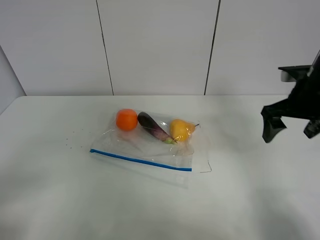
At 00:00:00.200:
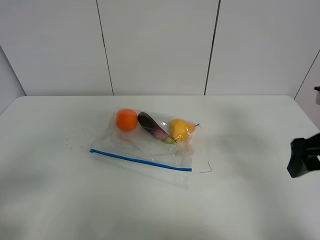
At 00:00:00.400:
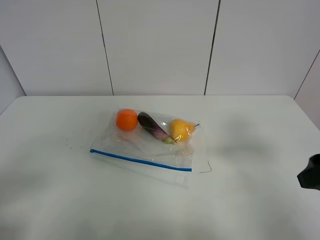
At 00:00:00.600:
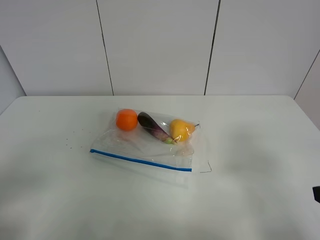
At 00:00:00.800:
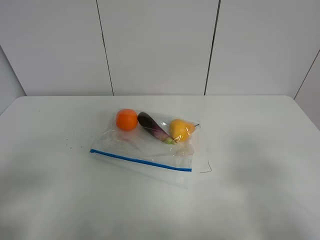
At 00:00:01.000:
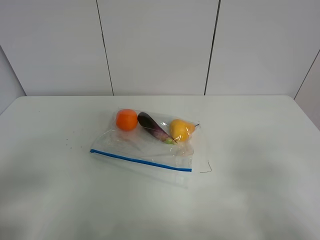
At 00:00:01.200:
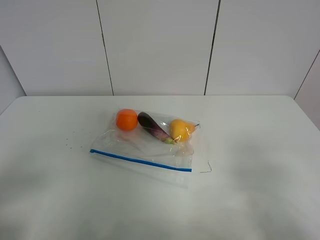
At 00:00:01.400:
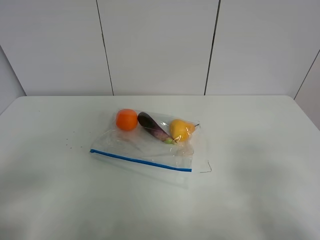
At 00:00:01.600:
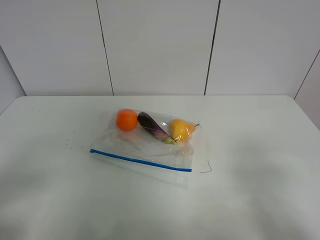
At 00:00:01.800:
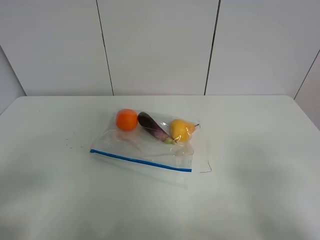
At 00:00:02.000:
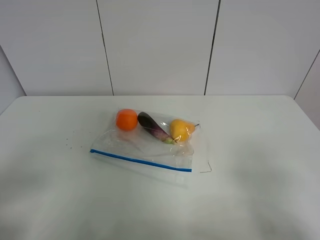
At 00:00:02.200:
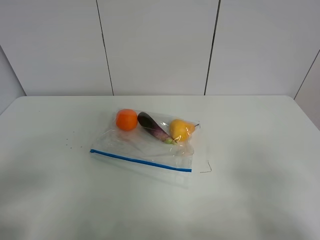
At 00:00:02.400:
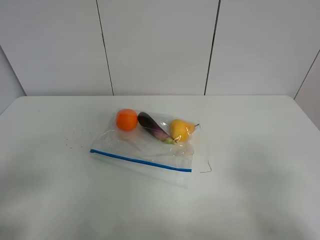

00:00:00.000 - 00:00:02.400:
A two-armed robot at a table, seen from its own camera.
00:00:00.000 - 00:00:01.200: The right gripper travels backward by some 25 cm.

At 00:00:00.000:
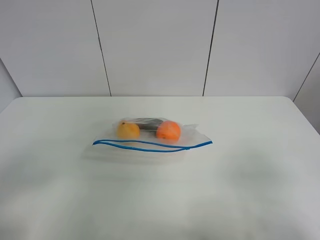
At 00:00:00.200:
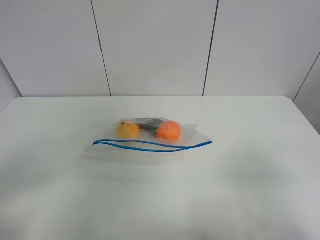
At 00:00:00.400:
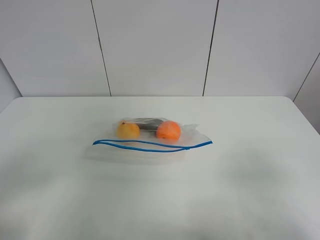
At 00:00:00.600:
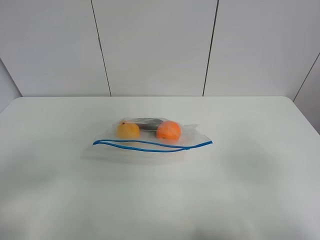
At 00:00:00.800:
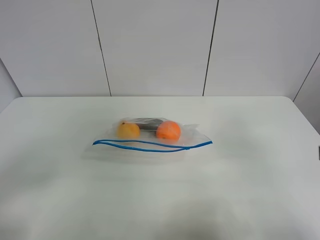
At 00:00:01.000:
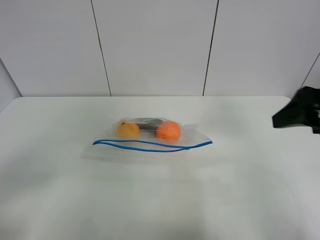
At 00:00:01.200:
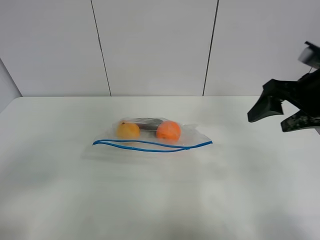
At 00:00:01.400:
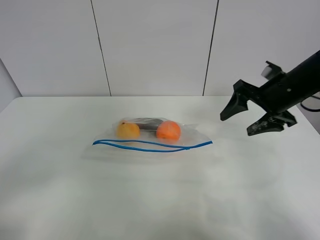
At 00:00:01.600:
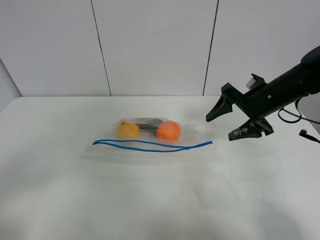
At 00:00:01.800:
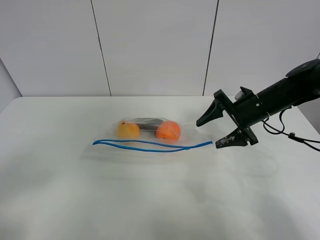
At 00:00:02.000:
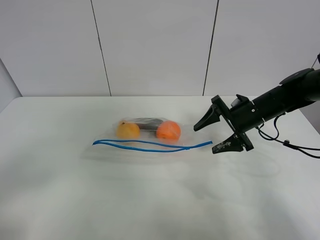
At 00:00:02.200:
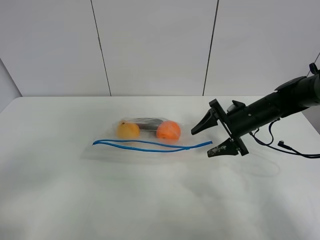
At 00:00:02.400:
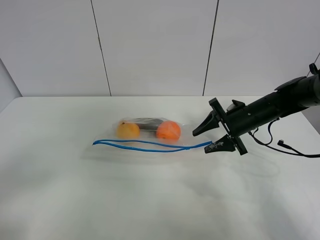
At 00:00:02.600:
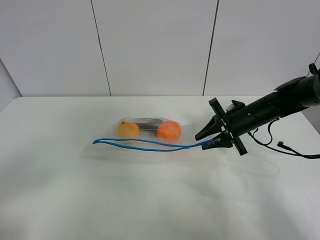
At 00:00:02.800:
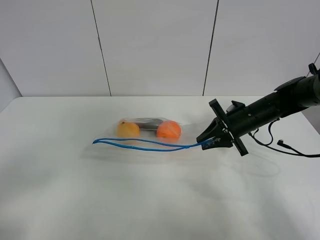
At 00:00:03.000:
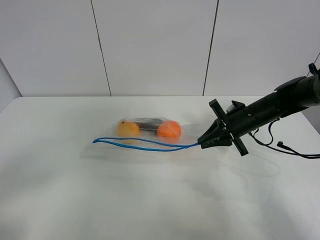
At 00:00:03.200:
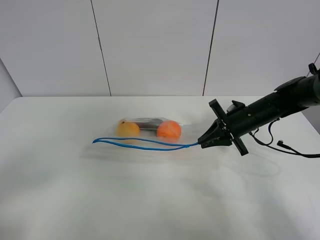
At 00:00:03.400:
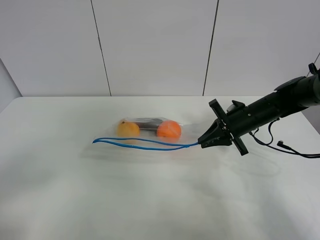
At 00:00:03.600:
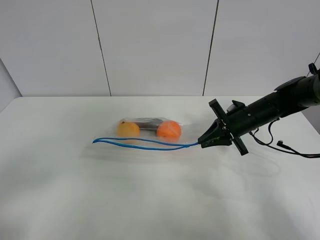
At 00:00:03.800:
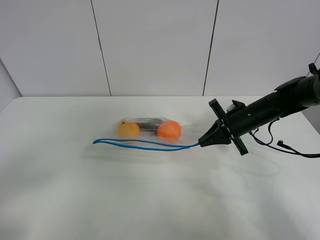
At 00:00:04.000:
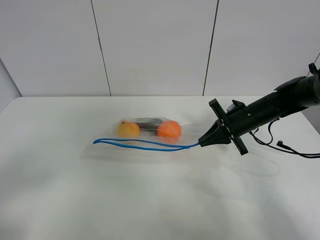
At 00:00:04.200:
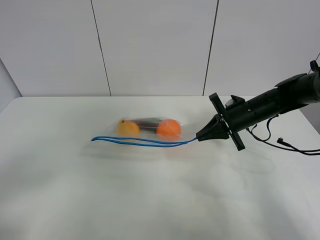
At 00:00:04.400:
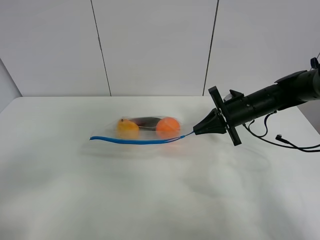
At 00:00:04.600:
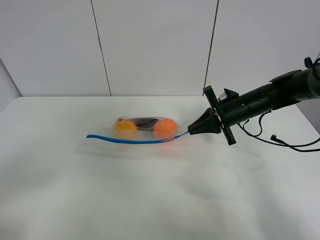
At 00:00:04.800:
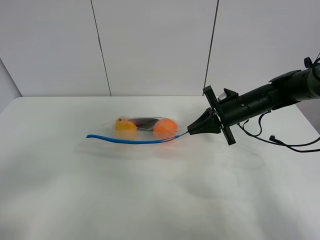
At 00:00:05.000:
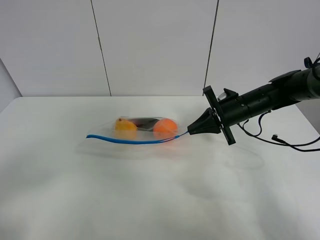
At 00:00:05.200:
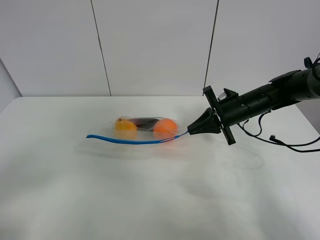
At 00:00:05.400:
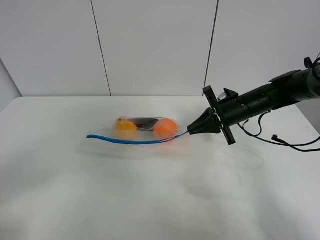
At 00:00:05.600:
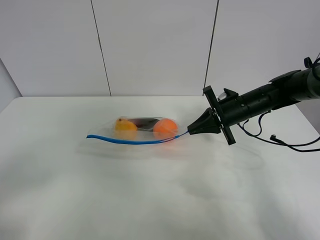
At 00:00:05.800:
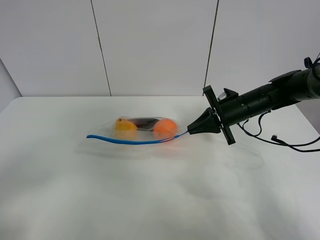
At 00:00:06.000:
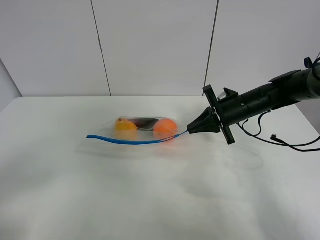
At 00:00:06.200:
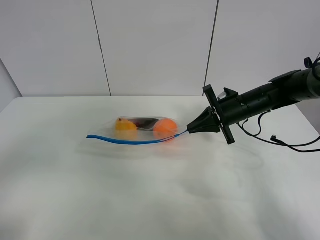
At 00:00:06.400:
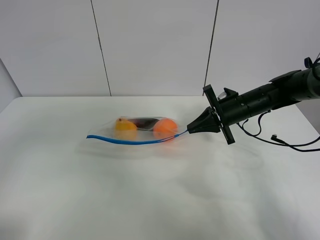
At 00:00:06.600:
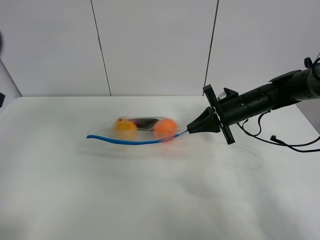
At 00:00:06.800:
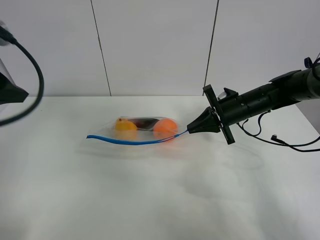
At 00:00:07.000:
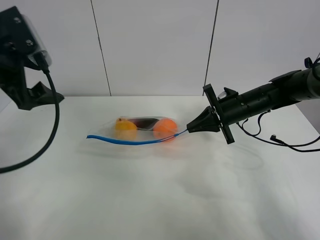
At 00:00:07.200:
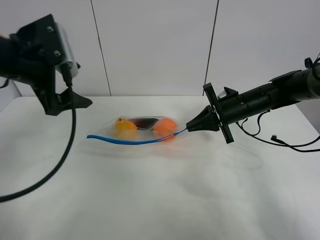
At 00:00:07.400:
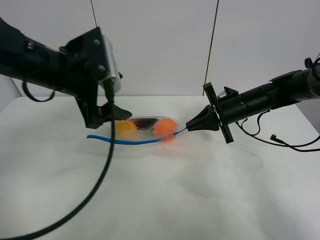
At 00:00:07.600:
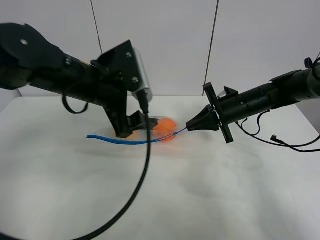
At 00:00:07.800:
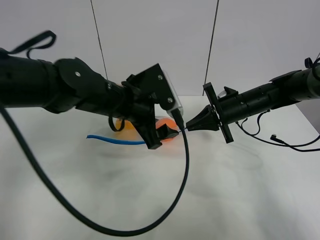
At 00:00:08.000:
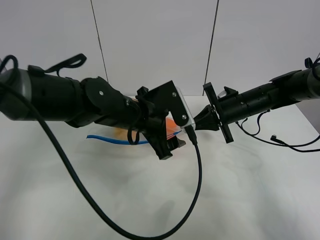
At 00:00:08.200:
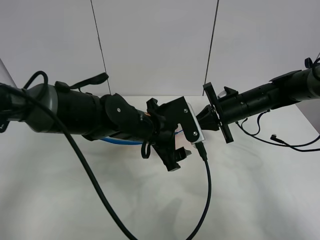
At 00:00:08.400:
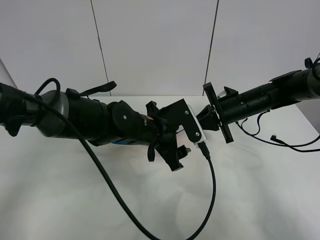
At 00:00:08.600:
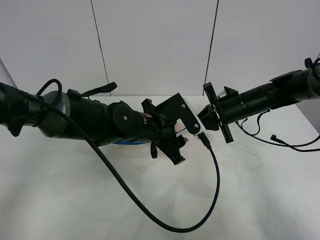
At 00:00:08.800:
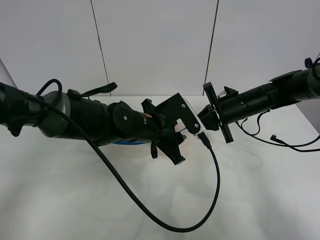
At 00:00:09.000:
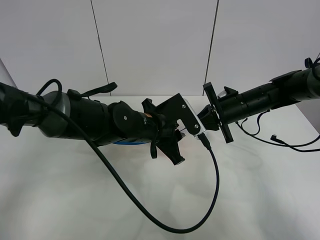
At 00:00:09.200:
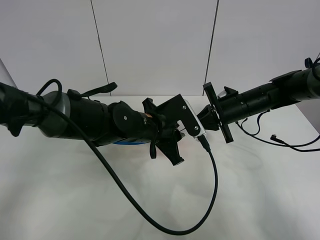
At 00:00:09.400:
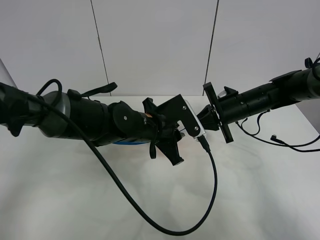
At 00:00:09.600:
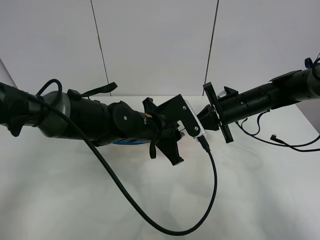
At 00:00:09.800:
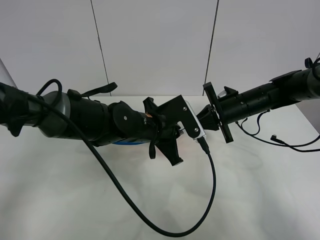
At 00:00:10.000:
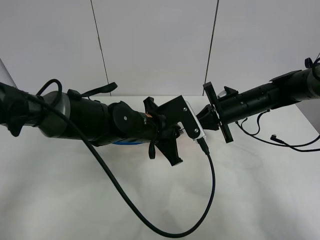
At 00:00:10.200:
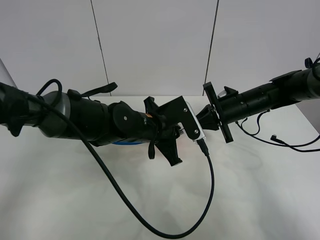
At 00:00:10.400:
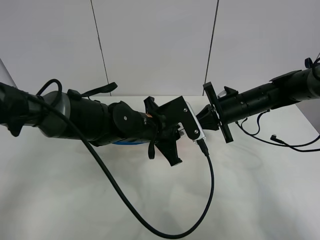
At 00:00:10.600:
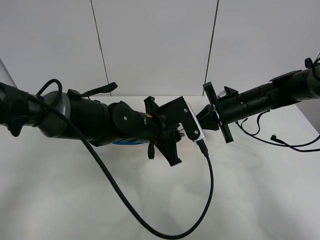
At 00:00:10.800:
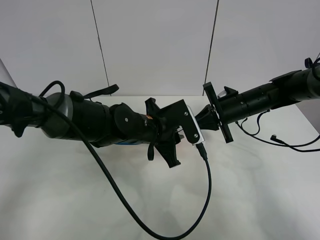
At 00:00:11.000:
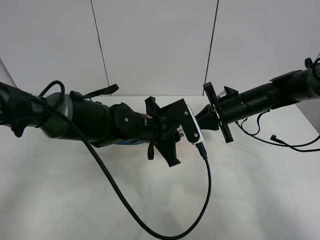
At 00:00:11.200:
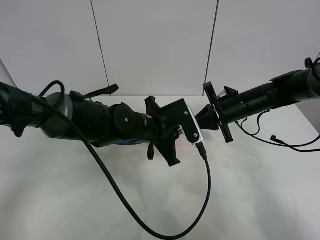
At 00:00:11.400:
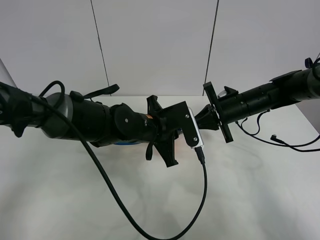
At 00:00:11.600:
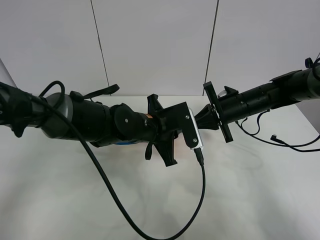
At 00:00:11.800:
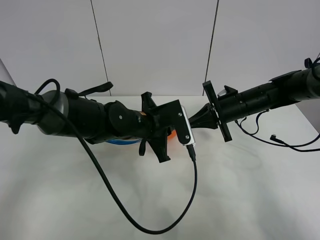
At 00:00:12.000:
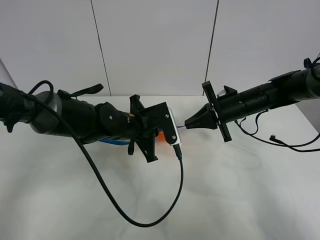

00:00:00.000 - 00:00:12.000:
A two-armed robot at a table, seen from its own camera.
Step, 00:00:00.000 - 00:00:03.600: Grasp the fruit bag with right gripper.
Step, 00:00:03.800 - 00:00:04.800: Lift the fruit bag with your right gripper.
00:00:00.000 - 00:00:01.600: The right gripper is displaced forward by roughly 35 cm.
00:00:01.600 - 00:00:03.000: The right gripper goes roughly 5 cm downward, and closes its fingers.
00:00:03.000 - 00:00:04.400: The grippers move only a little.
00:00:04.400 - 00:00:06.000: Both grippers stay about where they are.
00:00:06.000 - 00:00:07.600: The left gripper is displaced forward and to the right by some 35 cm.
00:00:07.600 - 00:00:09.000: The left gripper heads downward and to the right, covering some 15 cm, and closes.
00:00:09.000 - 00:00:10.400: The grippers move only a little.
00:00:10.400 - 00:00:12.000: The left gripper moves some 5 cm.

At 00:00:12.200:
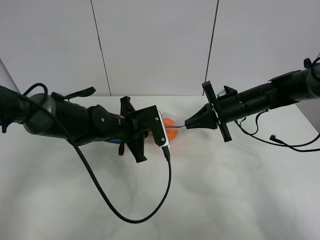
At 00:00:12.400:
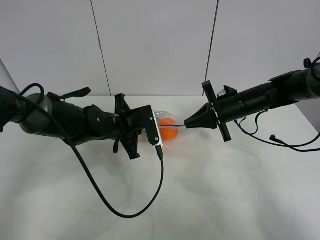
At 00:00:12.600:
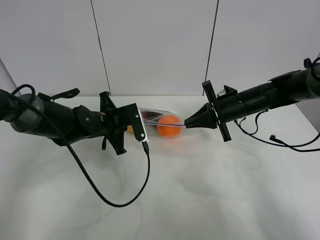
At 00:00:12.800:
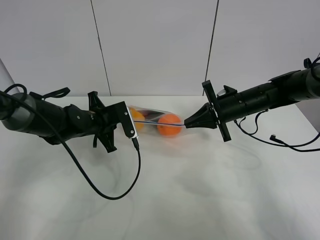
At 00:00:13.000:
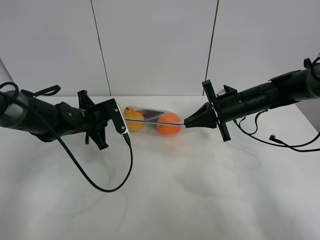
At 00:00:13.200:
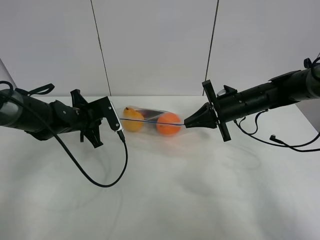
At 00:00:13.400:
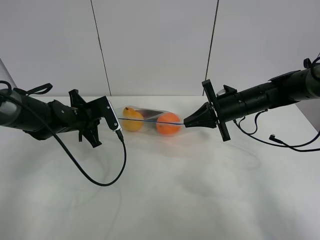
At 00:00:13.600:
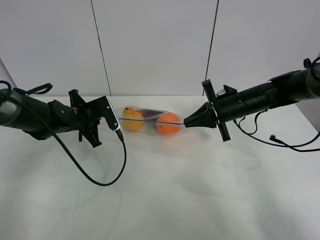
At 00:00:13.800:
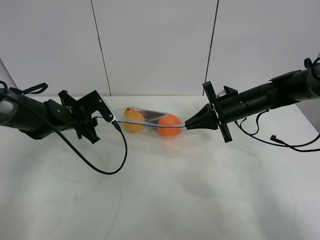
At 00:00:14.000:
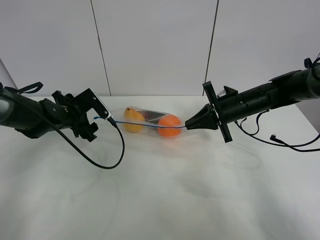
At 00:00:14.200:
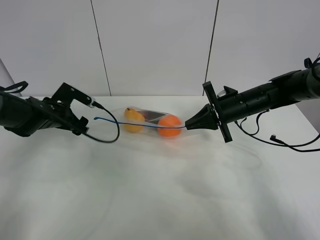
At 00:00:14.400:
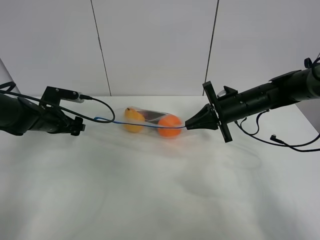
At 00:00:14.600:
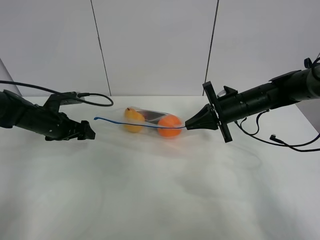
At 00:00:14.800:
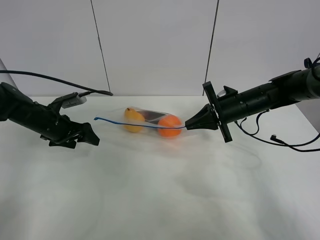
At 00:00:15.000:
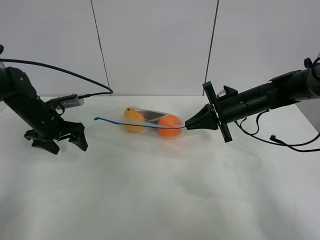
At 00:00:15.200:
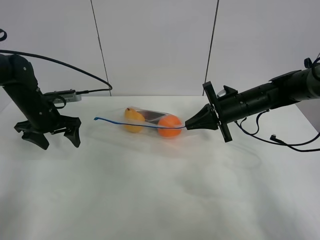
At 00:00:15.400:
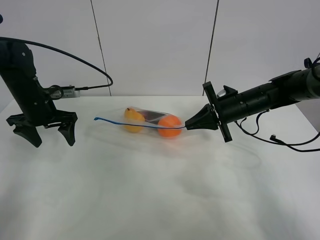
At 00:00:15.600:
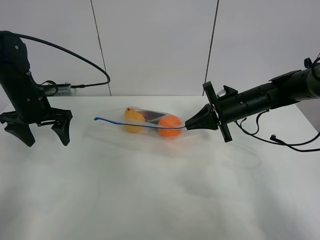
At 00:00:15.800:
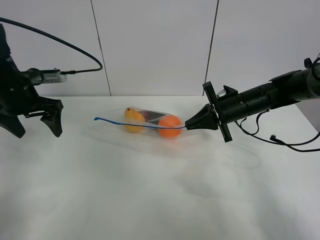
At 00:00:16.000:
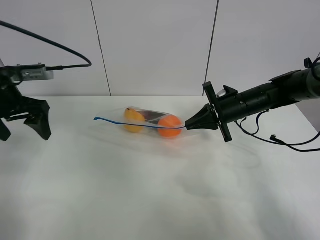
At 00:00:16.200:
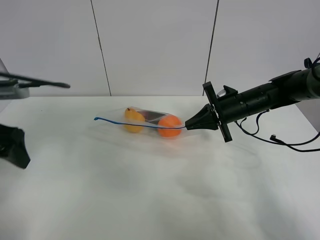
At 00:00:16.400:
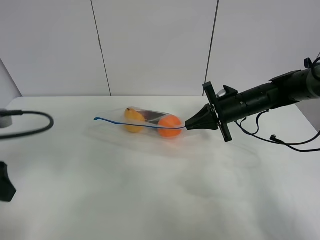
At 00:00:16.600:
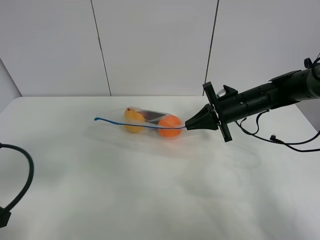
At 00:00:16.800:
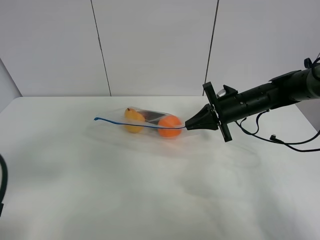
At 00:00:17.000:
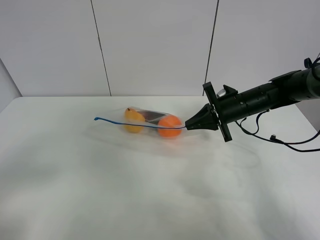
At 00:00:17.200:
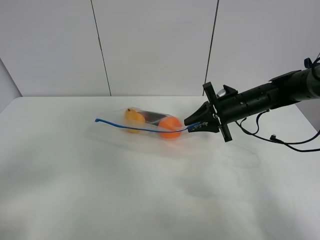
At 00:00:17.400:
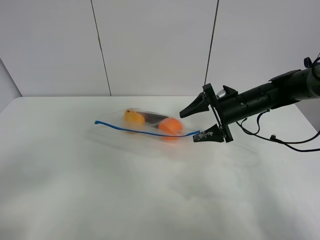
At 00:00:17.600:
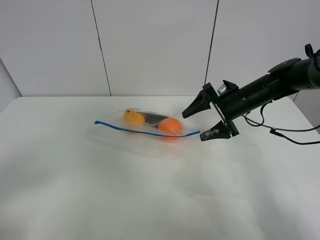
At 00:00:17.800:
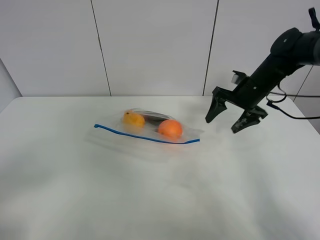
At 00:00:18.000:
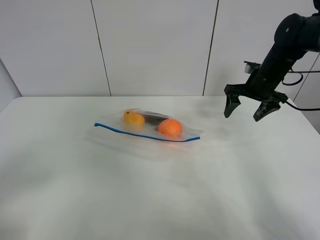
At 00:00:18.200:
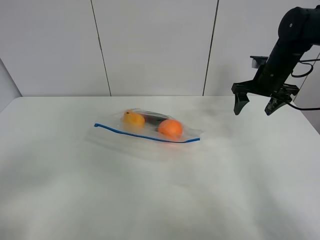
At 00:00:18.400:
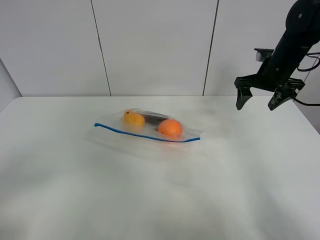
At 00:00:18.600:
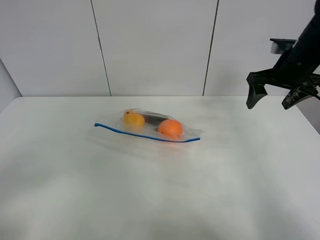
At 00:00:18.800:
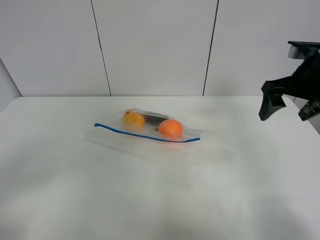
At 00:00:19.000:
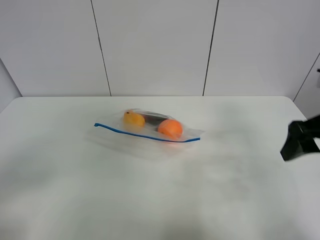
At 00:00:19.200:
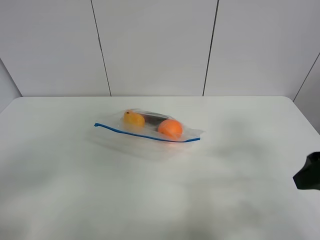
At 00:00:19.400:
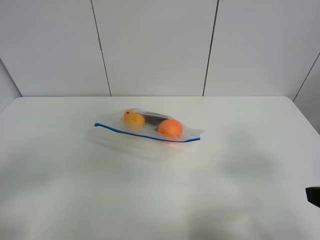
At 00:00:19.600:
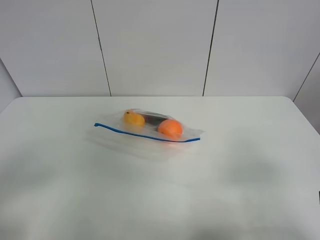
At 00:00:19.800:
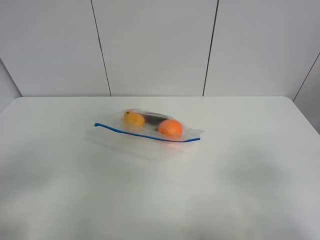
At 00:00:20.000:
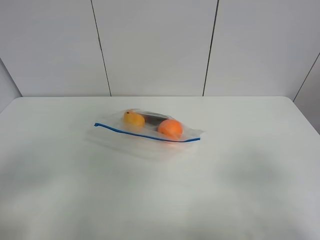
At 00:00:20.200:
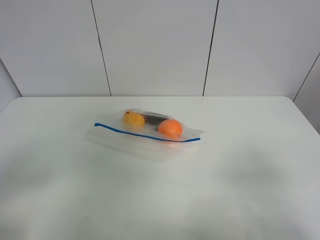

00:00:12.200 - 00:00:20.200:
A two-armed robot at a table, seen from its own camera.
00:00:12.200 - 00:00:13.800: The left gripper travels to the left by some 15 cm, and opens its fingers.
00:00:13.800 - 00:00:15.400: The left gripper is displaced upward and to the left by roughly 10 cm, and opens its fingers.
00:00:15.400 - 00:00:17.000: The left gripper shifts some 35 cm backward.
00:00:17.000 - 00:00:18.600: The right gripper heads upward and to the right, covering about 15 cm, and opens.
00:00:18.600 - 00:00:20.200: The right gripper goes roughly 35 cm backward.
